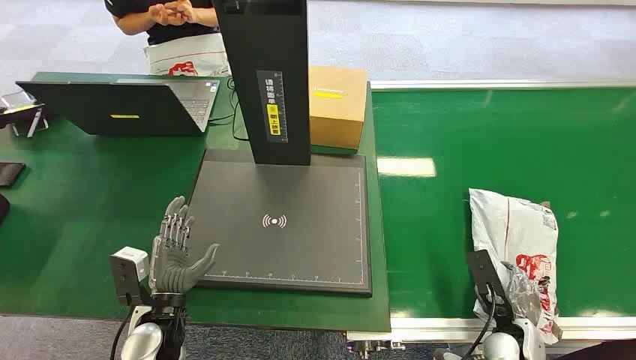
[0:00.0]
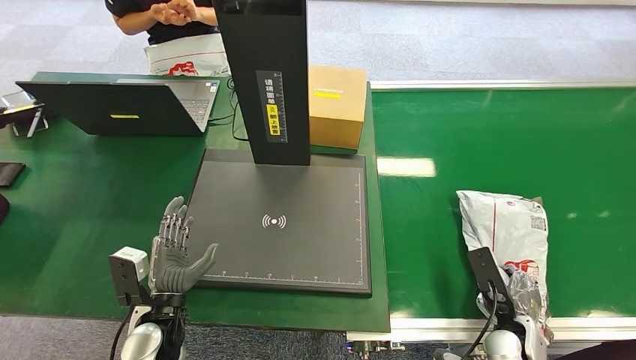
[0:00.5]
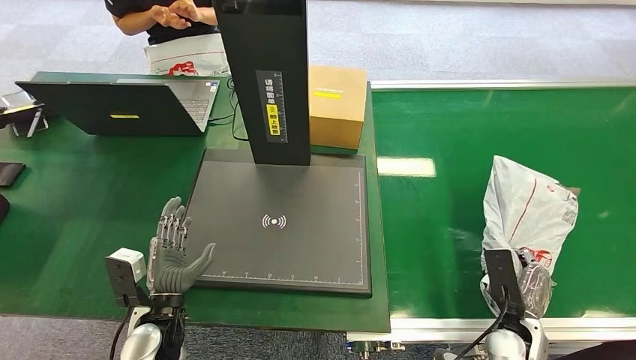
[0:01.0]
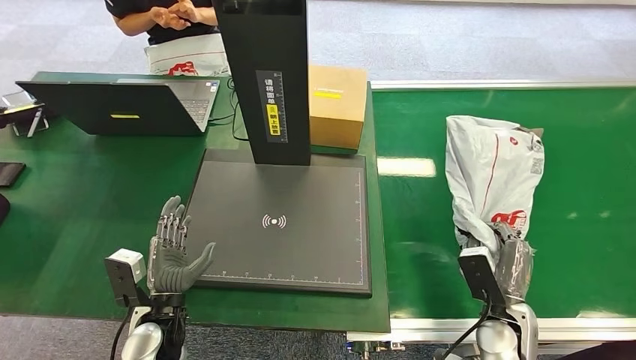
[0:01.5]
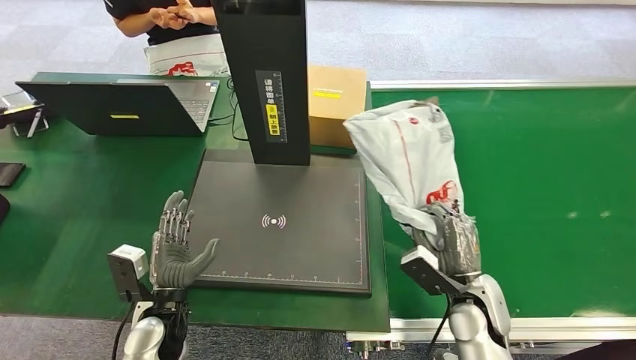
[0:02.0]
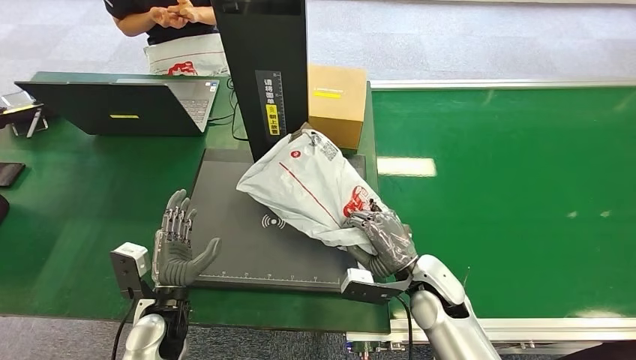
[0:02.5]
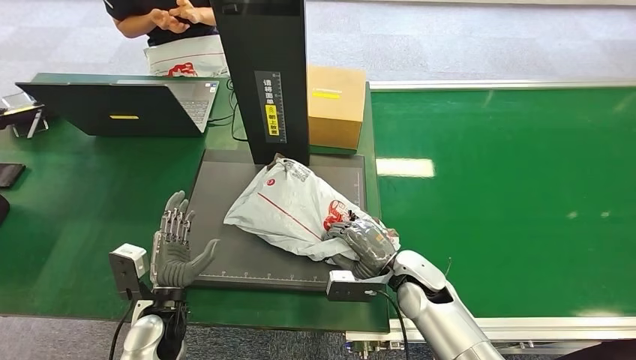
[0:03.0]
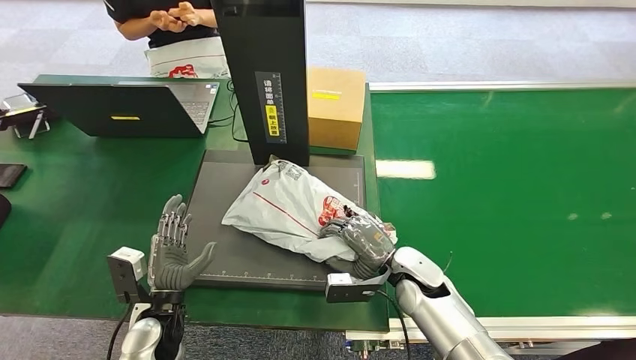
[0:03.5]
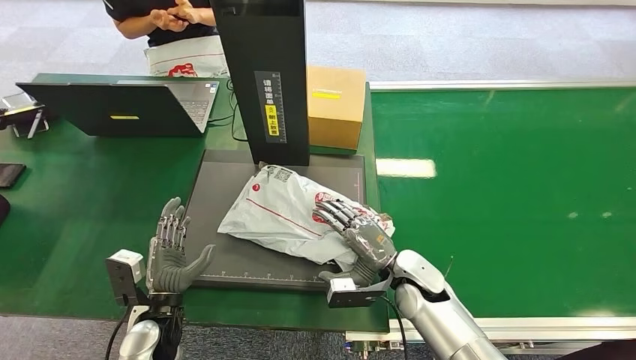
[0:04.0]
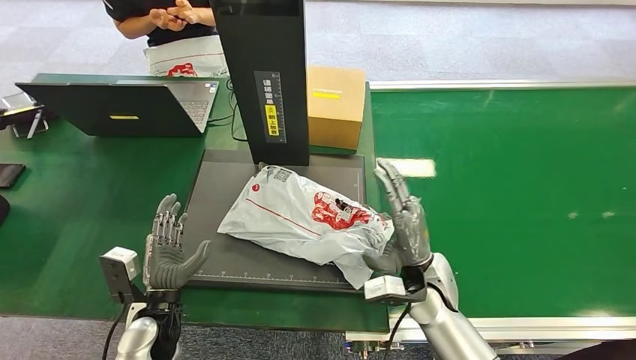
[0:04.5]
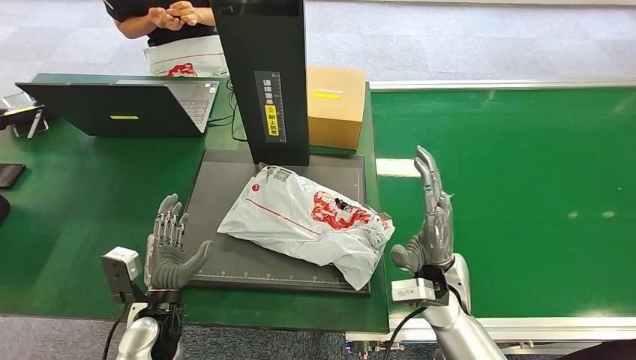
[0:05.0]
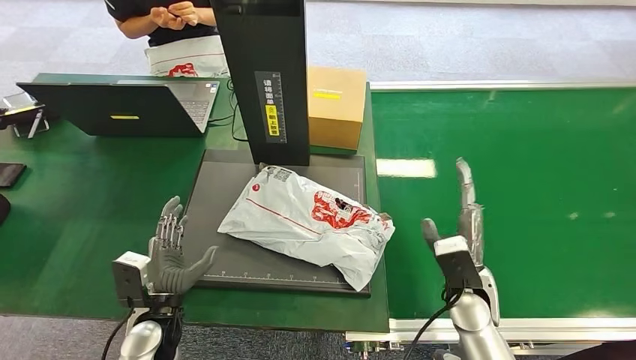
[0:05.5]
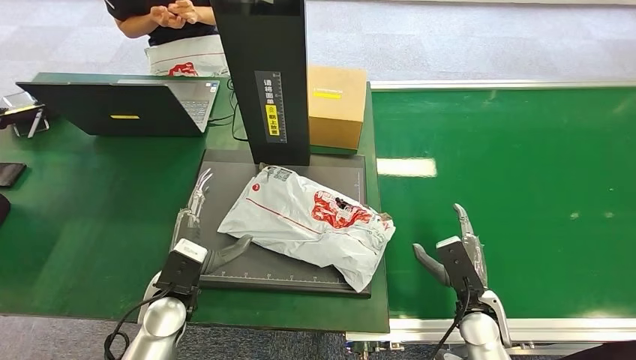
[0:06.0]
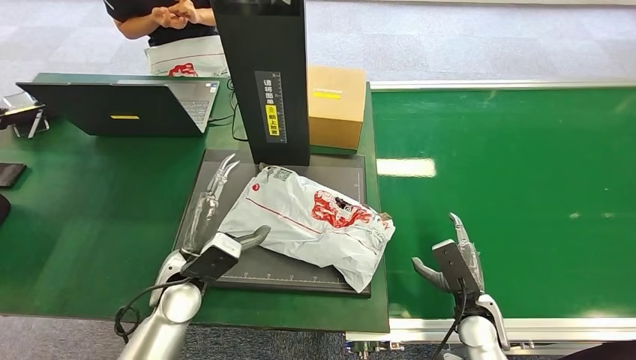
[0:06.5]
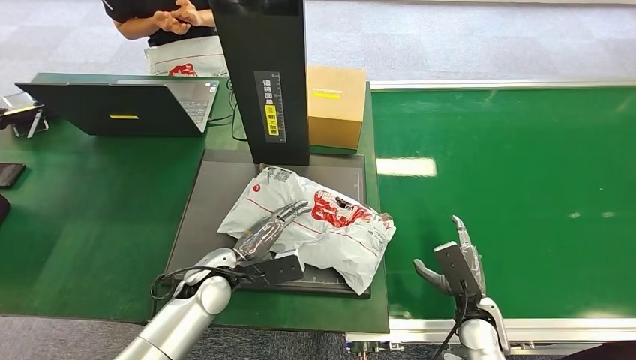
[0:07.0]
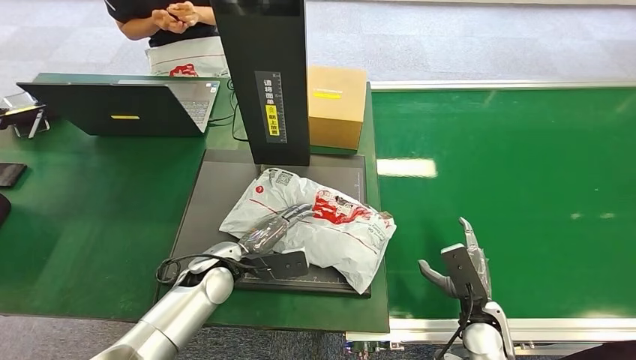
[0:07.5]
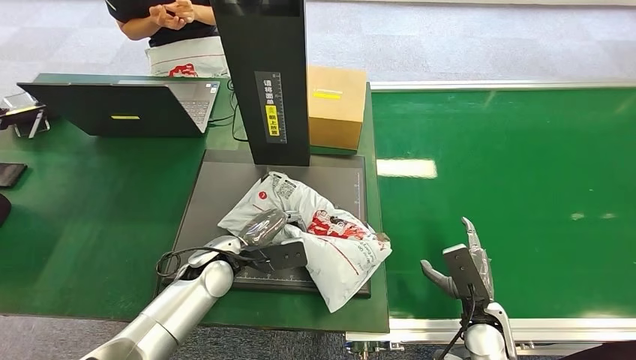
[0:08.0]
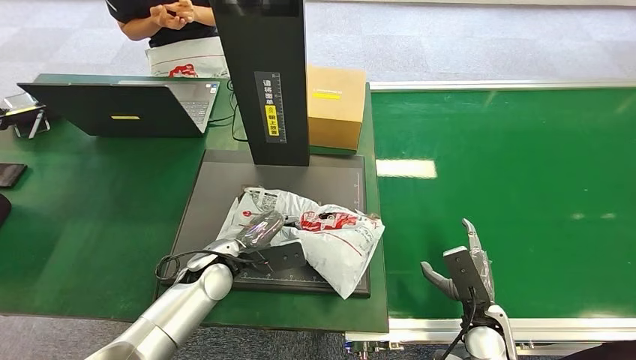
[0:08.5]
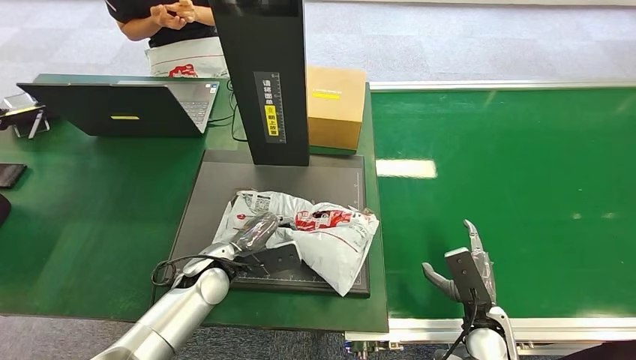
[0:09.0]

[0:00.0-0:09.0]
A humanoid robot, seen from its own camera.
Step, 0:00.0 to 0:02.0: Pick up the package from the conveyor belt.
Step, 0:02.5 to 0:05.0: Place the package onto the inbound machine.
0:04.5 to 0:07.0: The right hand is displaced to the right, downward and backward by some 15 cm; the left hand moves to the right and forward, approximately 10 cm.
0:07.0 to 0:09.0: The hands stay close to where they were, moving slightly.

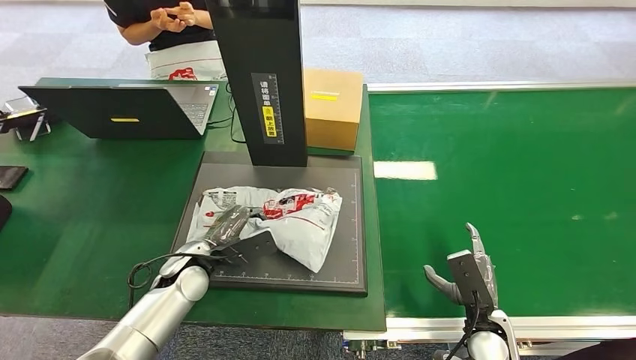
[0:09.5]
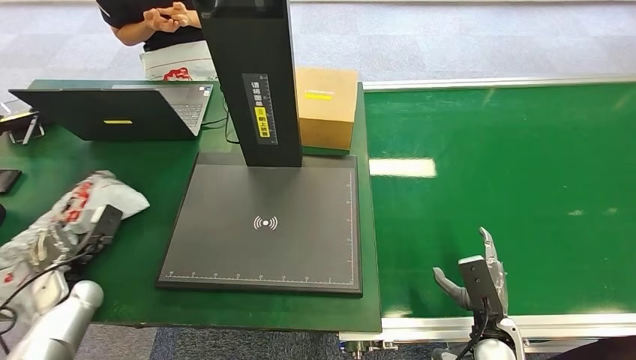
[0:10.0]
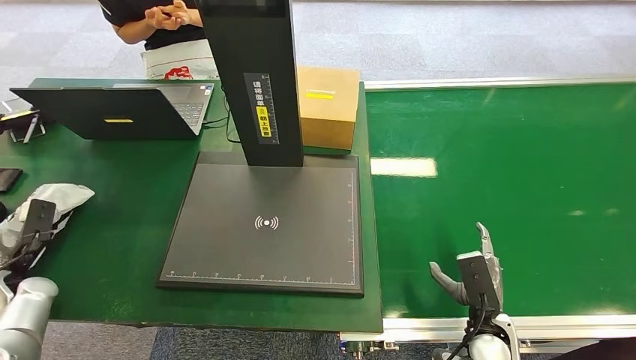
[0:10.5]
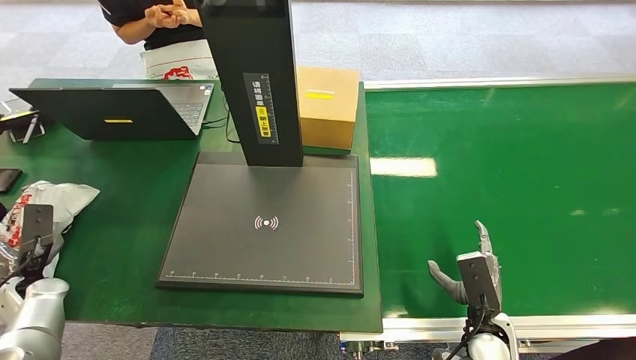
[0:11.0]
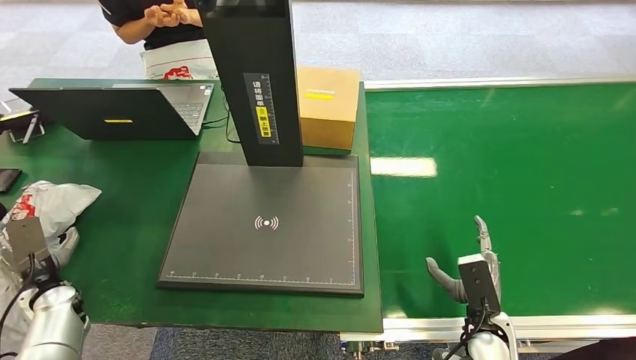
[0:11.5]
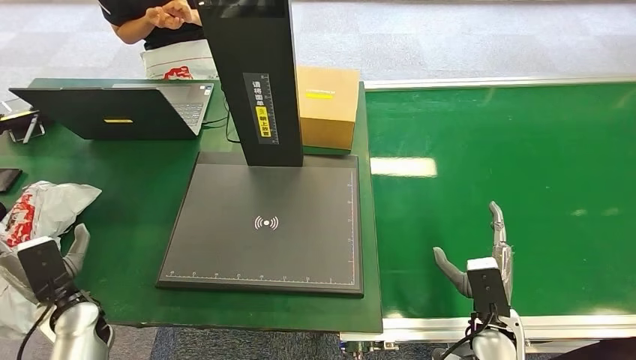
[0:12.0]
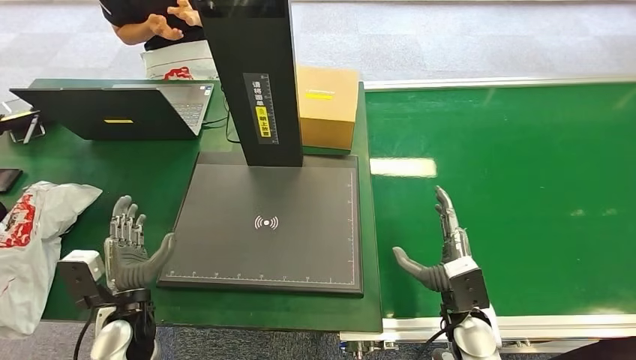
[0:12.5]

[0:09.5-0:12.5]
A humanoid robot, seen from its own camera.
Step, 0:10.5 to 0:12.5: Place the package into the parcel locker.
0:11.0 to 0:12.5: The left hand shifts some 20 cm to the right; the right hand moves some 5 cm.

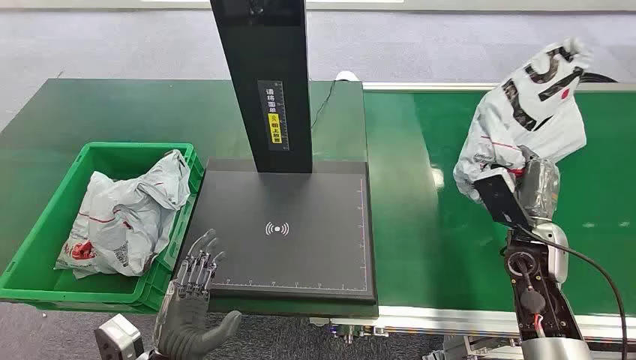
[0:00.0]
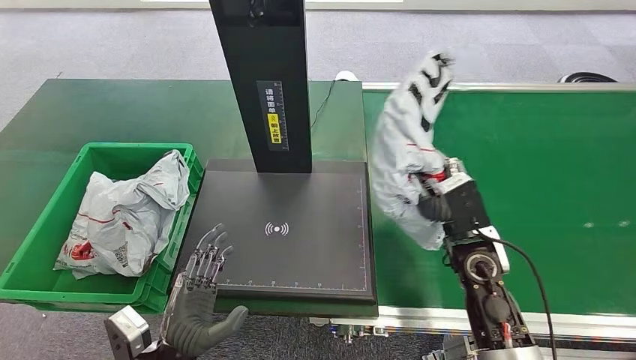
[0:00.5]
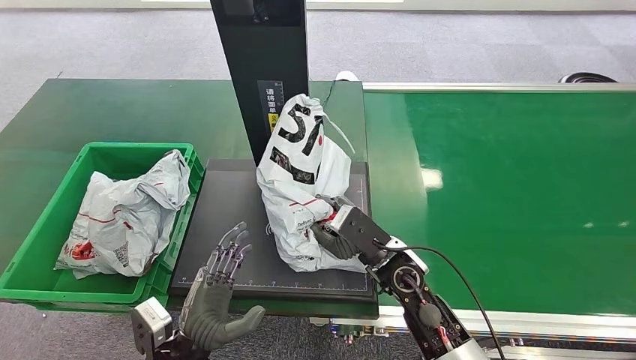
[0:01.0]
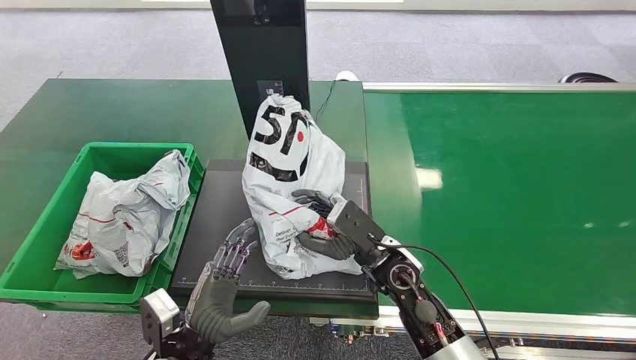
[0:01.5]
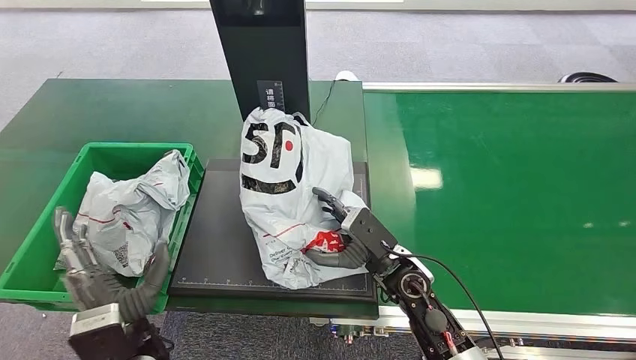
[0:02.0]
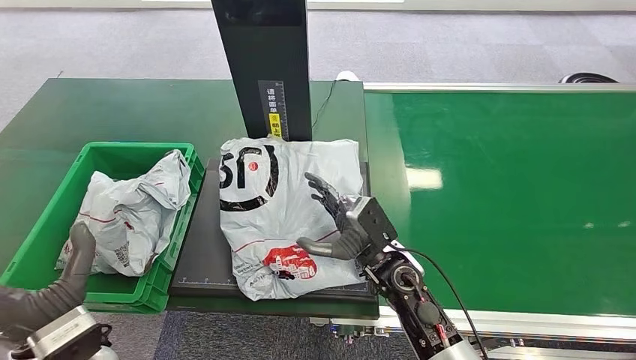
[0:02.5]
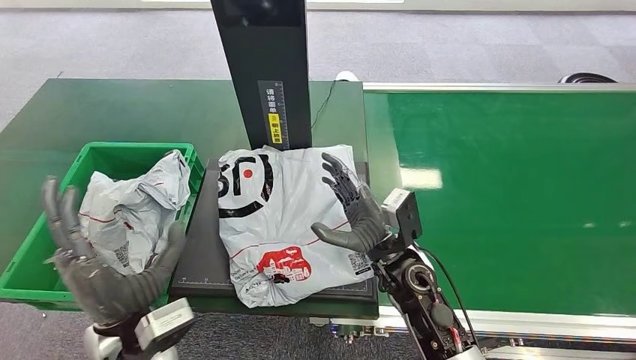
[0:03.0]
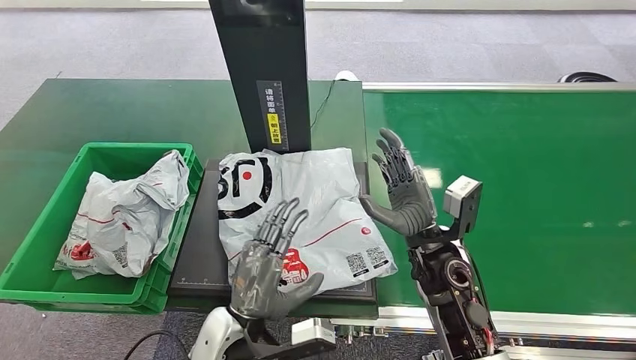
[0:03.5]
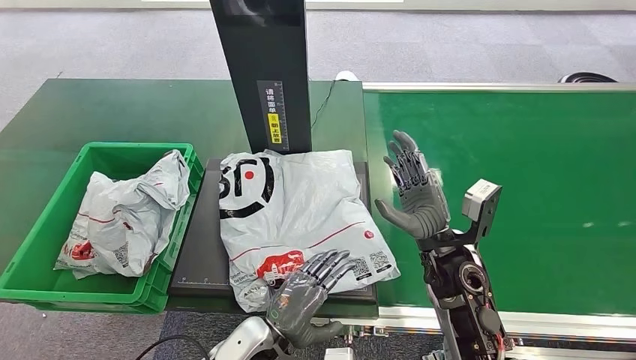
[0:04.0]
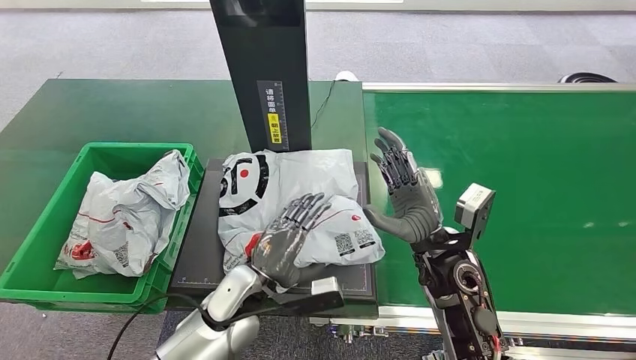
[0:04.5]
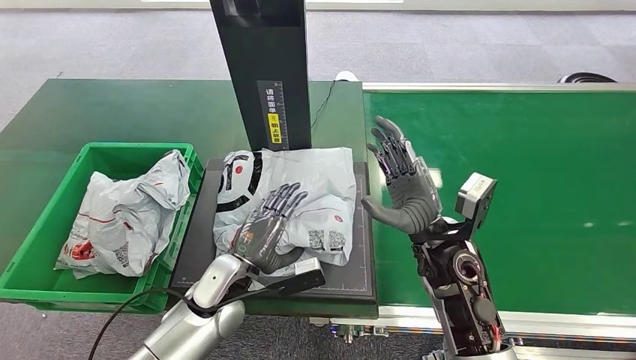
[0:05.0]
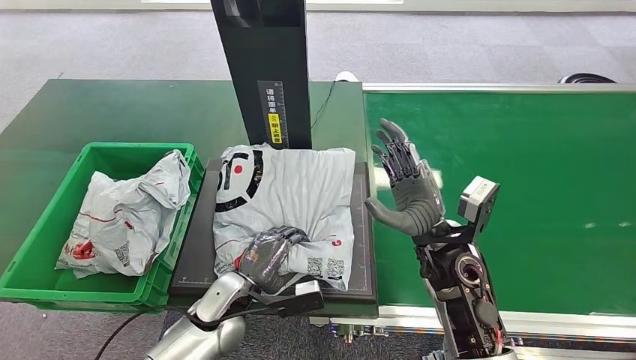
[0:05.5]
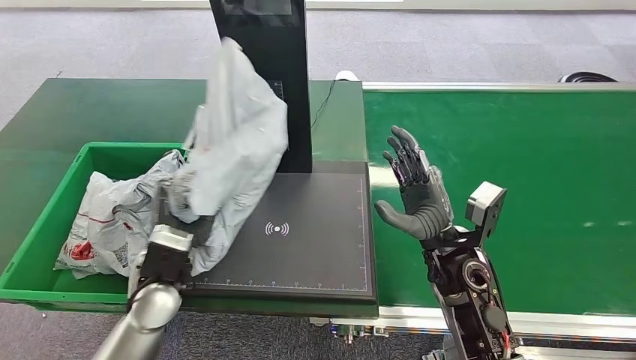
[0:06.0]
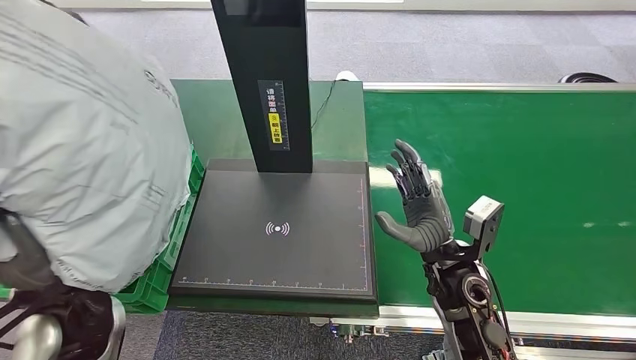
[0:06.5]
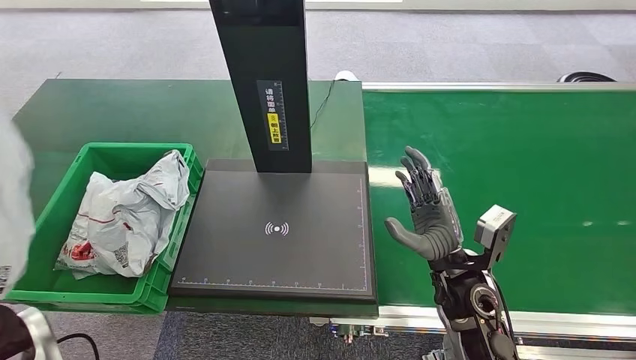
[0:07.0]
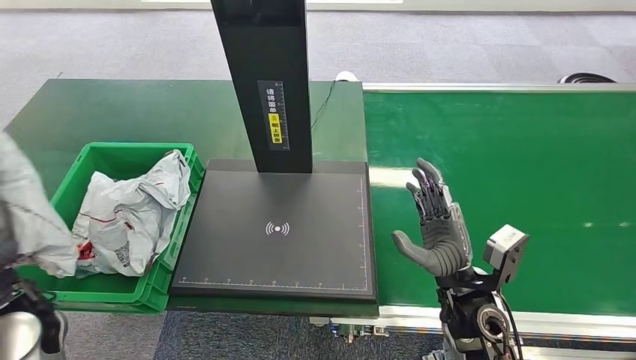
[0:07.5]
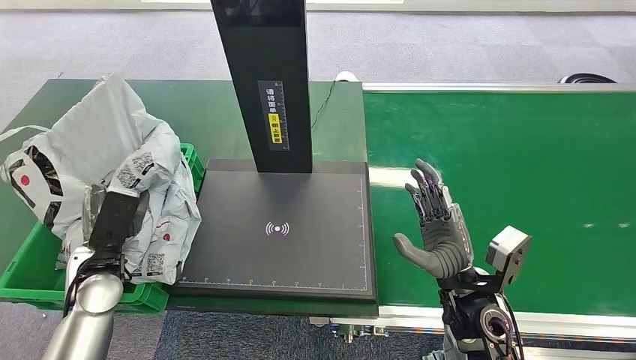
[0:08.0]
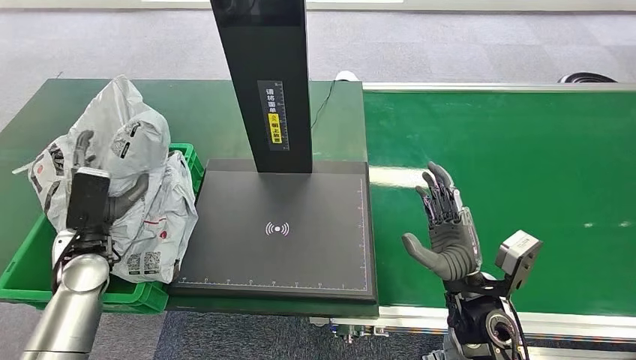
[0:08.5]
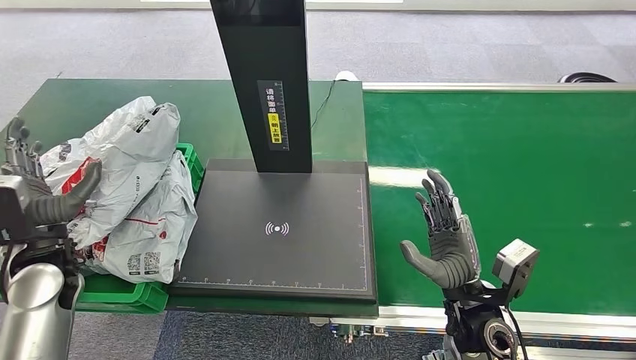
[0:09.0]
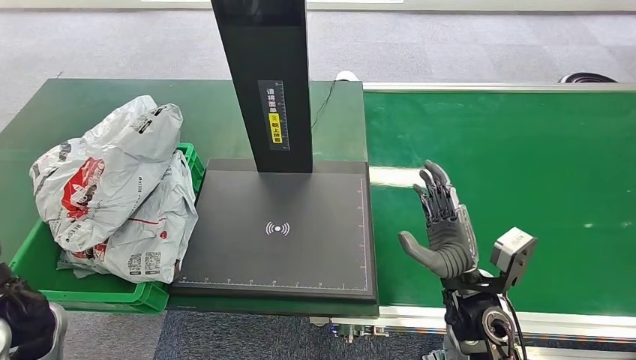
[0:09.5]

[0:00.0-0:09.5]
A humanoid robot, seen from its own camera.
0:04.0 to 0:05.5: The left hand shifts about 10 cm forward and to the left.
0:07.5 to 0:09.5: The left hand travels forward and back again, approximately 10 cm each way.
